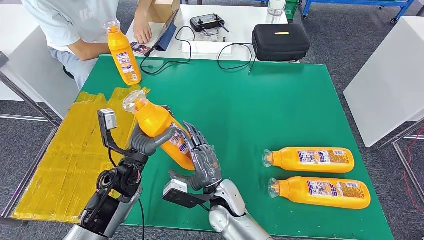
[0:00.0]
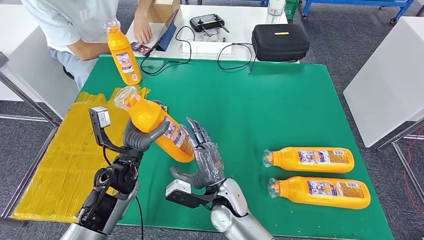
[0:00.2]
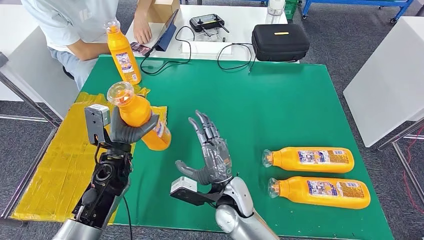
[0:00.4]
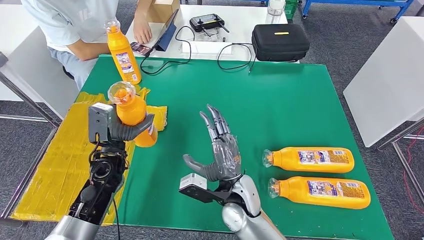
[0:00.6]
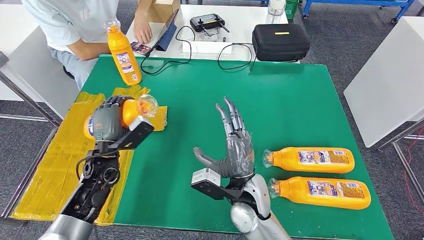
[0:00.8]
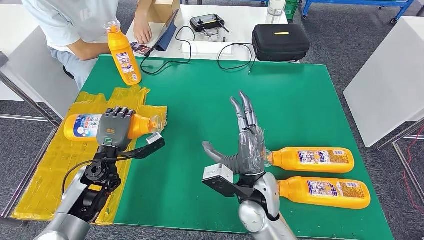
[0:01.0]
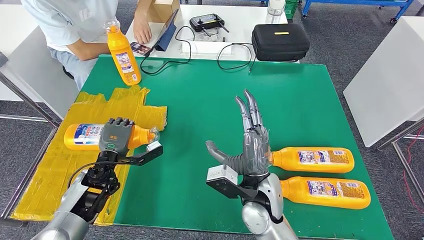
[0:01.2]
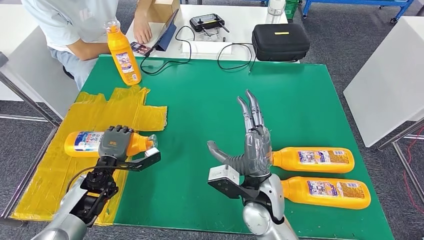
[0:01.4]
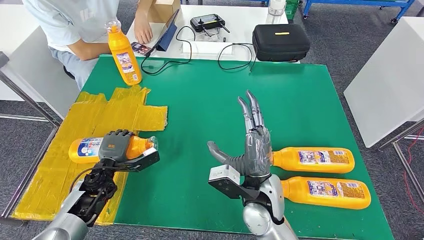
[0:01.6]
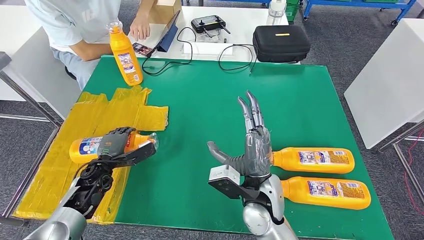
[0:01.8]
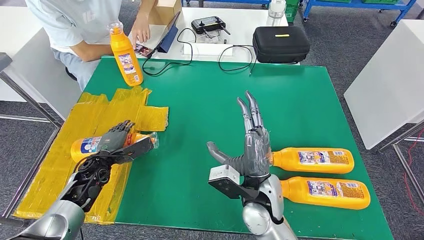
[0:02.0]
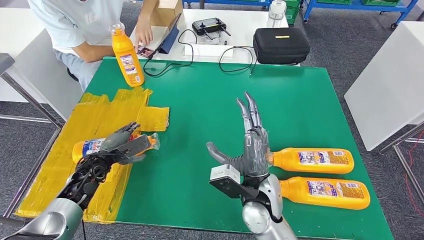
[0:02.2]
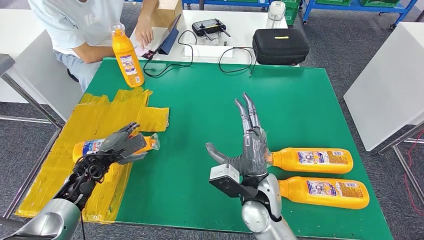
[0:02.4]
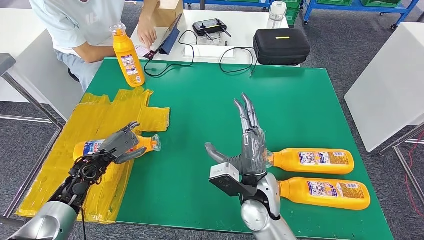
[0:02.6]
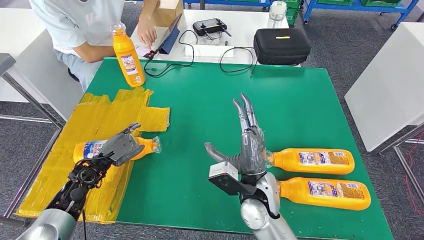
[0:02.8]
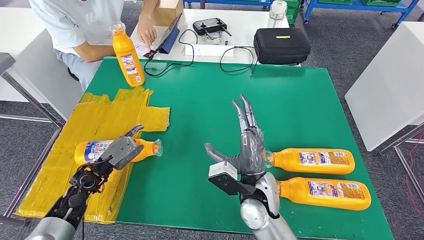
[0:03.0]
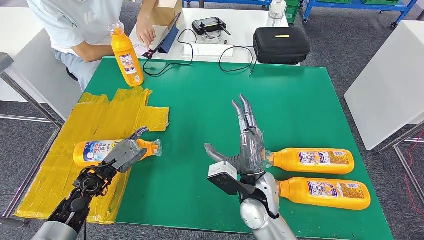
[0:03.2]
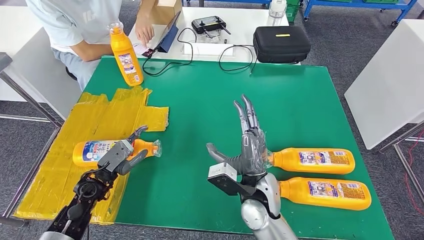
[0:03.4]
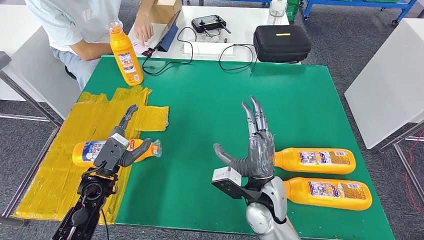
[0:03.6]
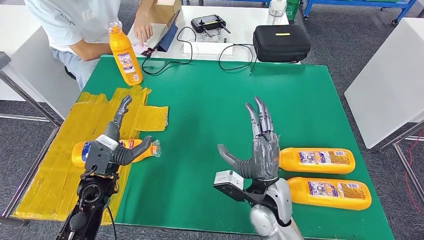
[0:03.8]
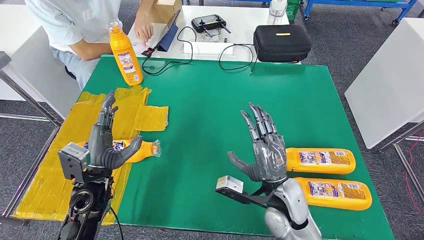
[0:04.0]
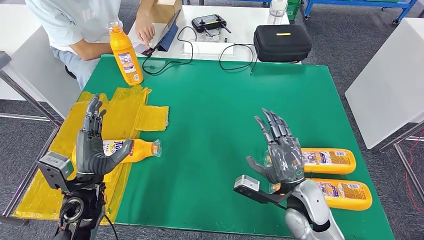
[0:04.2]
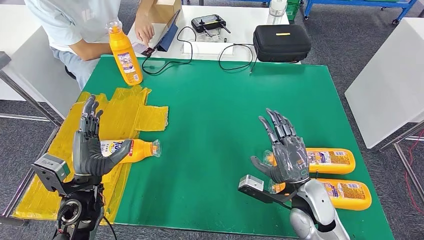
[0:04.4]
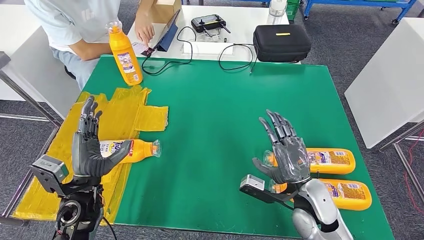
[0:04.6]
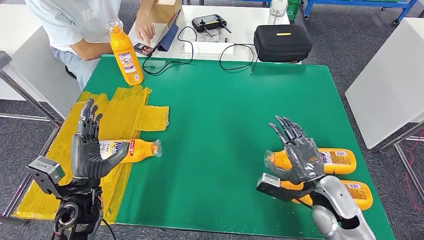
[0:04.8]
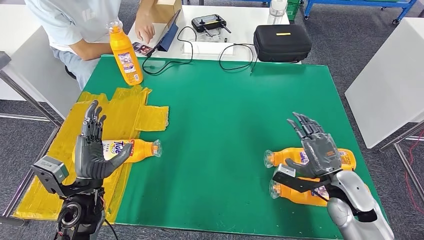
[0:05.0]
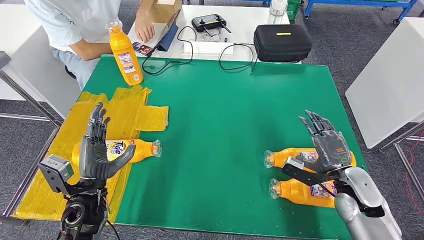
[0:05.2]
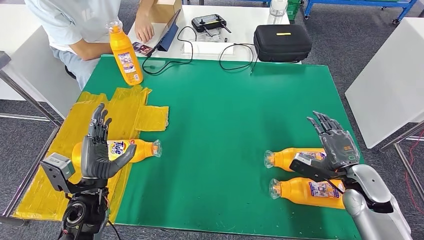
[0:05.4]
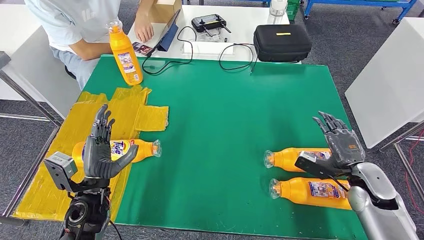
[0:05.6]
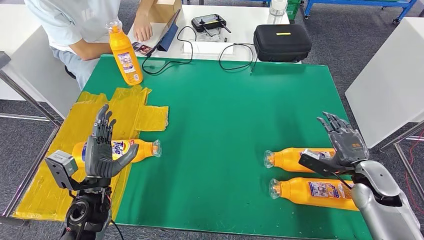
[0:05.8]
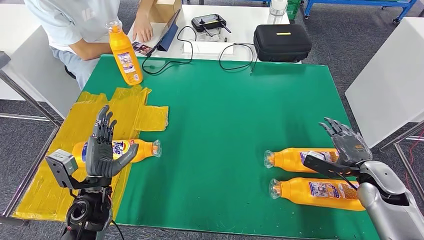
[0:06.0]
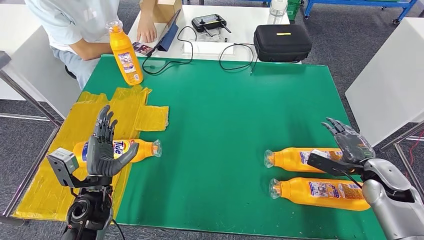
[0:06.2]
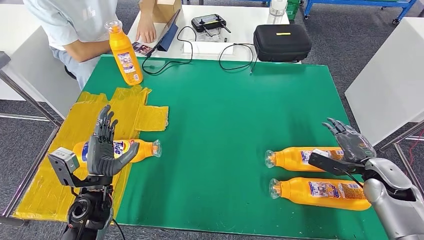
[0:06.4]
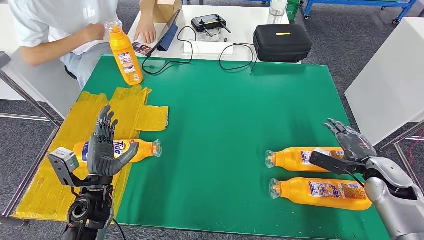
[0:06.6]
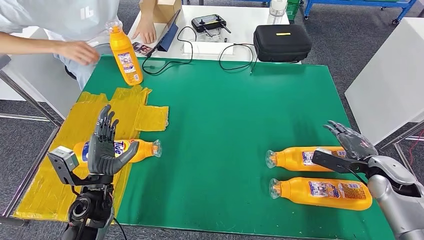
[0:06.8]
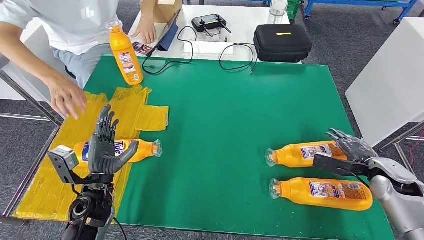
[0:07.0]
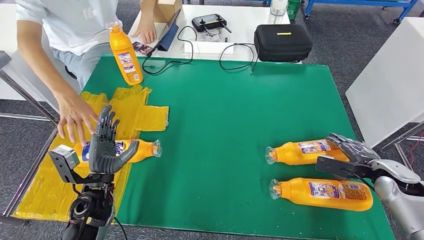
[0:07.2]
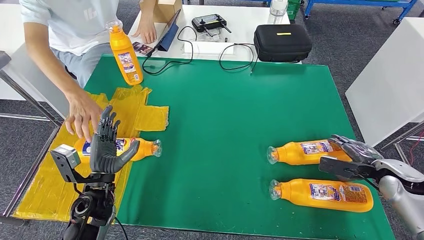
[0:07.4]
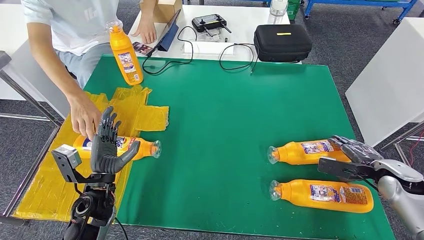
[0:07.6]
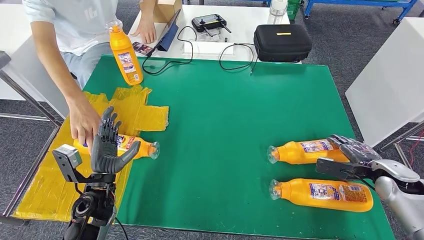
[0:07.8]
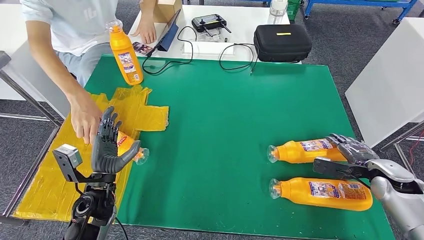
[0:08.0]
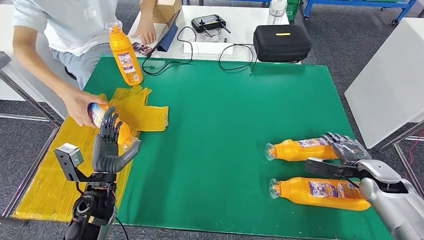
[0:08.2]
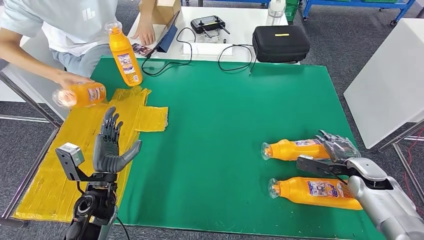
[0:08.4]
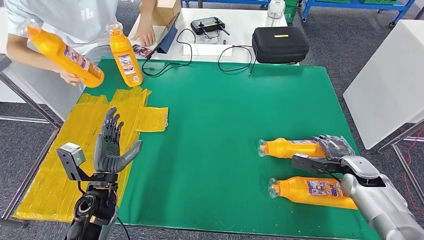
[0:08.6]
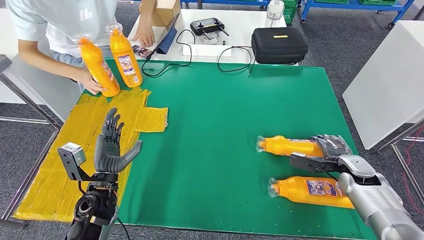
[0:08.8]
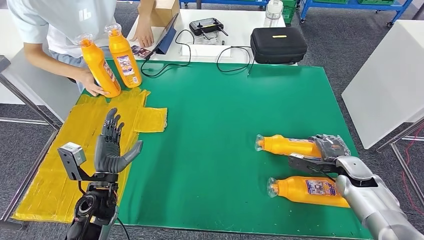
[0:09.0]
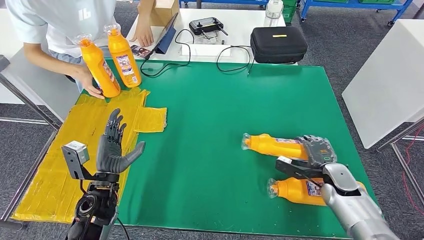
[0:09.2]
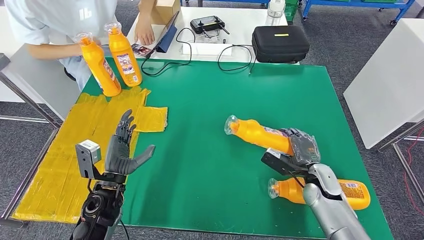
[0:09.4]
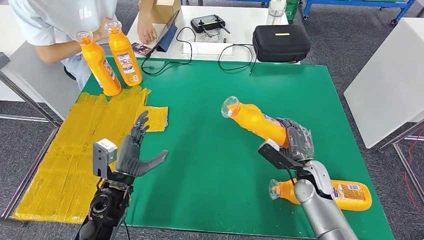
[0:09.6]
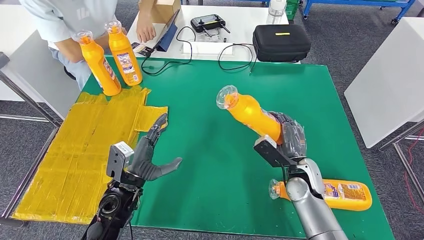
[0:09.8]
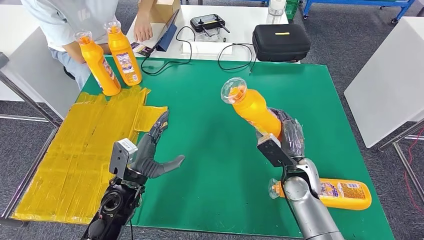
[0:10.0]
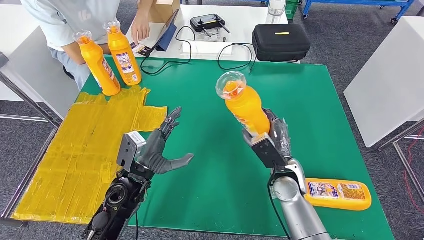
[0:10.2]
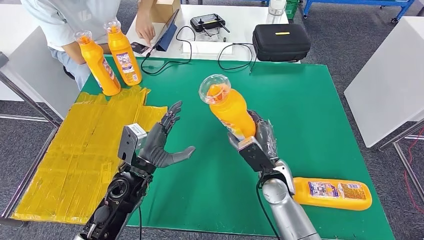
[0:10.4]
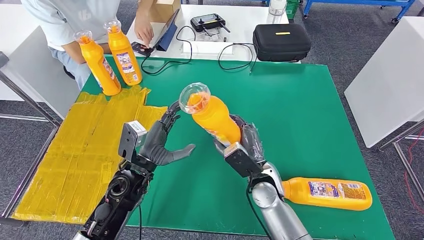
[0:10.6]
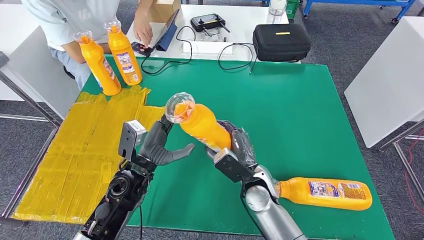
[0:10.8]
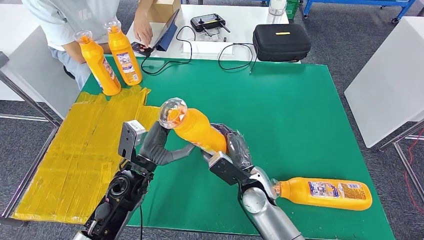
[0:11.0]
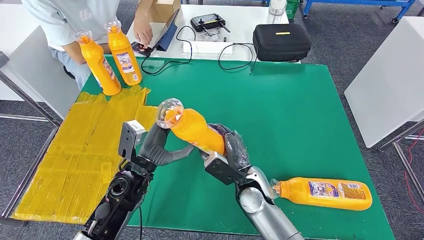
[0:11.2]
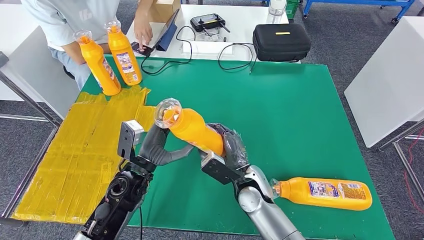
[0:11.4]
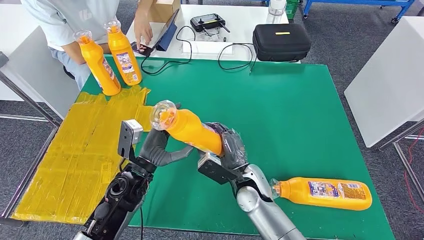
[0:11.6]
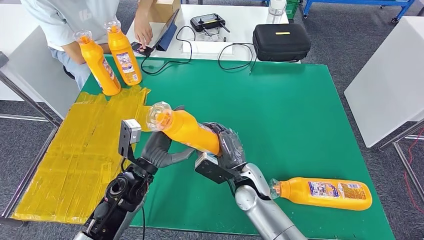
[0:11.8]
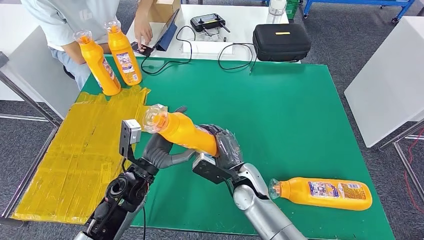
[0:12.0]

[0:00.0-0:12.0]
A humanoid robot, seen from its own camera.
Step, 0:01.6 to 0:10.6: Pick up the fast-moving consumer goods bottle from the table.
0:00.0 to 0:01.6: The left hand heads to the left and downward, covering about 15 cm. Meanwhile the right hand is displaced upward and to the right by some 10 cm.
0:04.4 to 0:06.0: The right hand shifts about 20 cm to the right.
0:06.0 to 0:07.6: The right hand shifts some 5 cm to the right.
0:10.4 to 0:12.0: The right hand goes some 5 cm to the left.

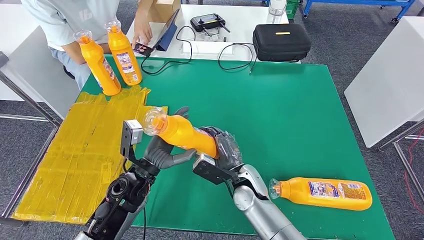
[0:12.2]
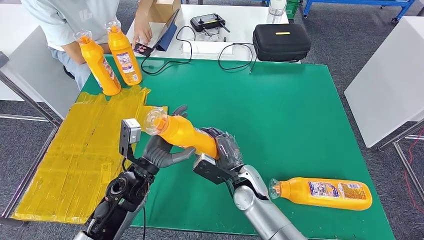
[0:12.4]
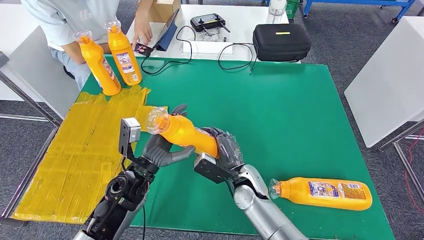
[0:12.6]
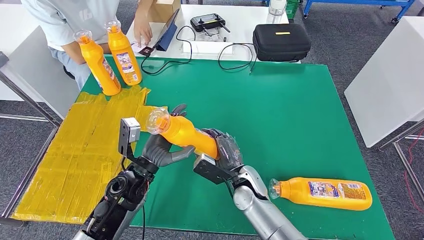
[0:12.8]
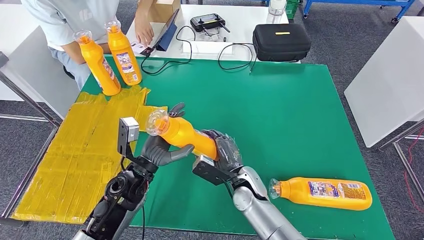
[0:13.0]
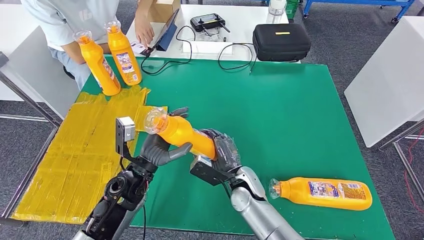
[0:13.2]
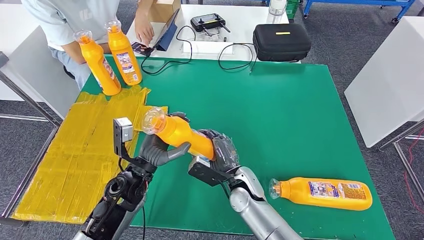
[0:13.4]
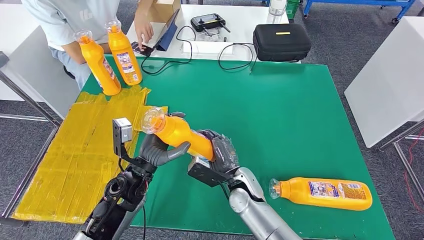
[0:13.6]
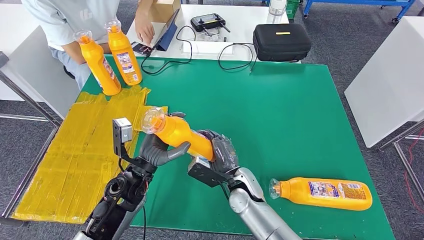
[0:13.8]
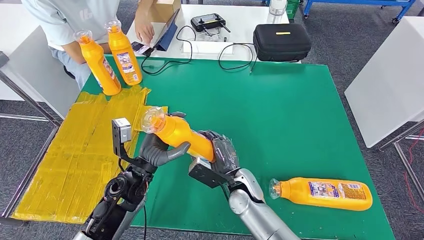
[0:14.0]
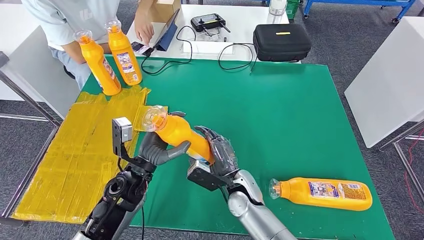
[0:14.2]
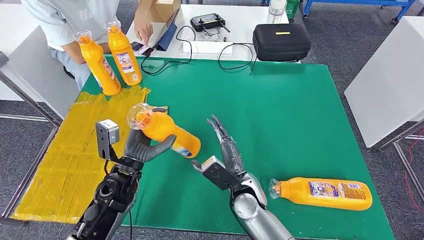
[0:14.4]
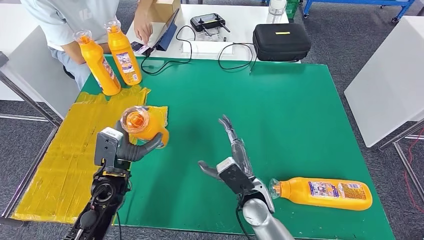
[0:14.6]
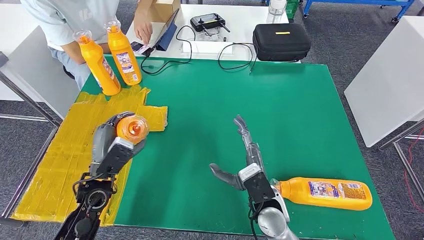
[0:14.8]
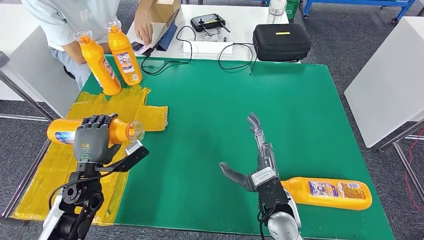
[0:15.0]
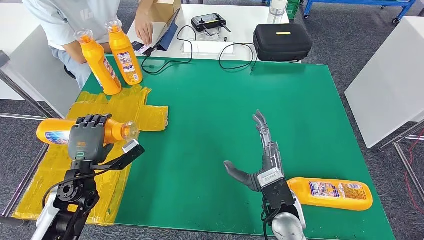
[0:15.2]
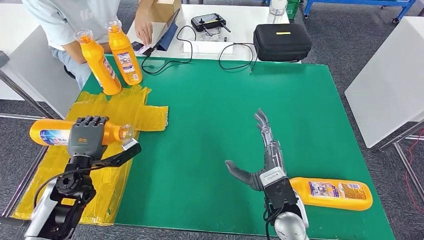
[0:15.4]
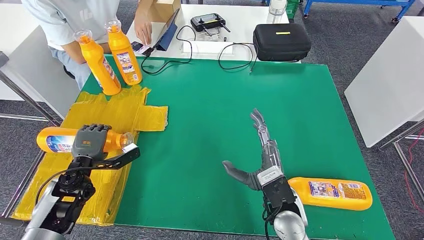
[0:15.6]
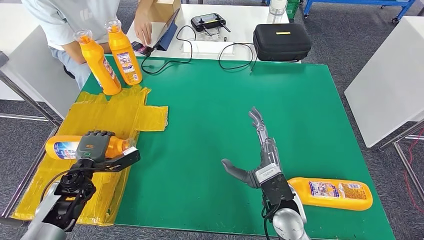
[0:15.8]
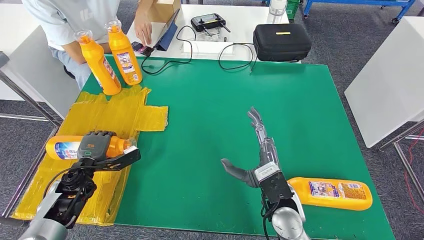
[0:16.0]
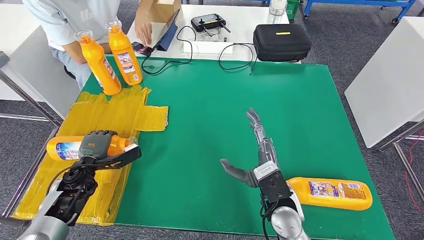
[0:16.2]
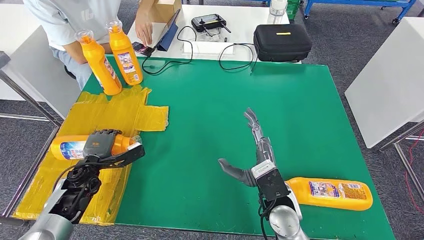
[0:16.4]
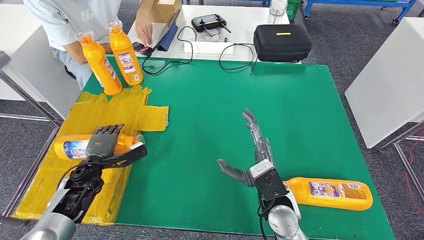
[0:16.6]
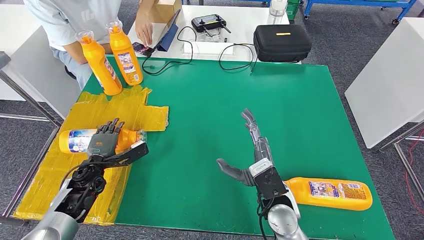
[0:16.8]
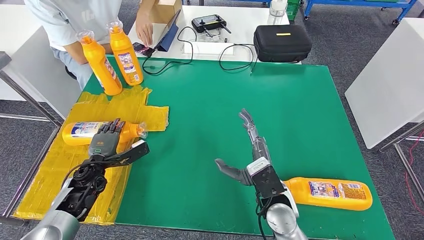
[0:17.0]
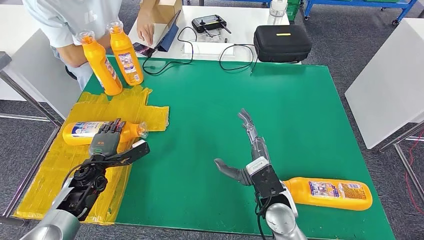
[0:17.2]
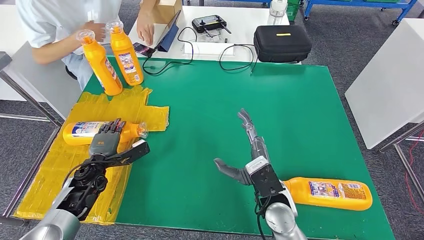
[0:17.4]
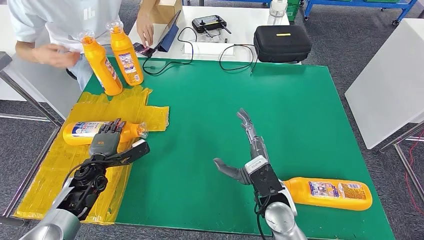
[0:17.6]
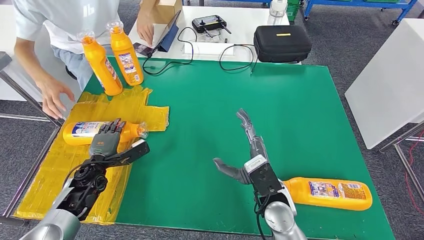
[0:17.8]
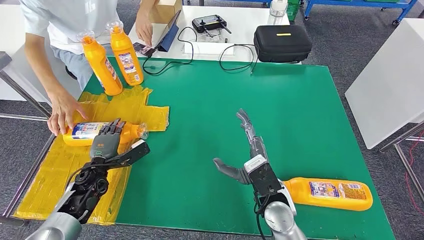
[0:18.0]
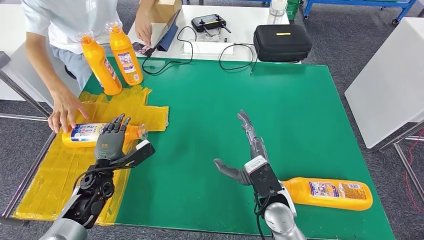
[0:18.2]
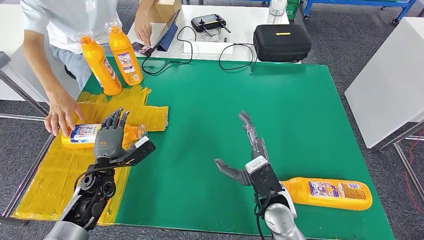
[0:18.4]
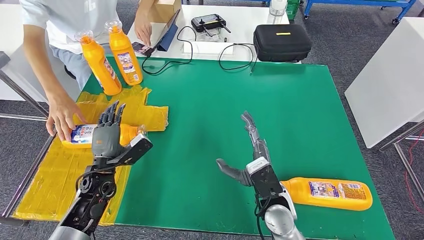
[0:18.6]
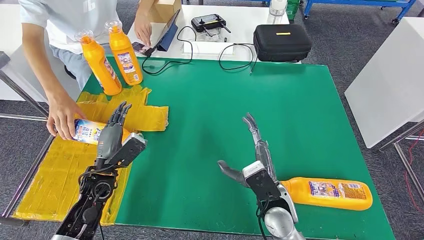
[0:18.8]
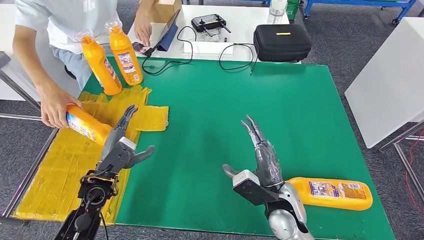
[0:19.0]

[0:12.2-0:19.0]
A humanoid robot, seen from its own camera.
Step, 0:12.2 to 0:16.0: Flip the fast-moving consumer goods bottle to the front side.
0:12.2 to 0:13.6: The hands move only a little.
0:13.6 to 0:15.0: The right hand goes some 10 cm backward, to the right and upward; the left hand travels to the left by about 10 cm.
0:15.0 to 0:16.2: The left hand moves to the left and downward, about 10 cm.
0:16.2 to 0:17.6: The hands move only a little.
0:17.6 to 0:19.0: The left hand heads to the right and backward, covering roughly 10 cm.
